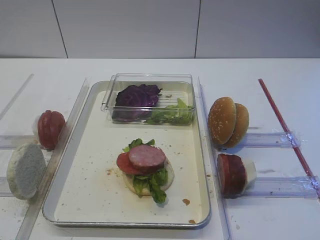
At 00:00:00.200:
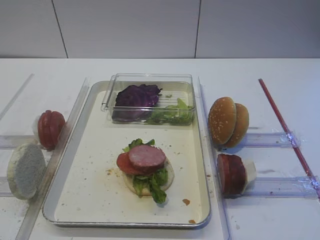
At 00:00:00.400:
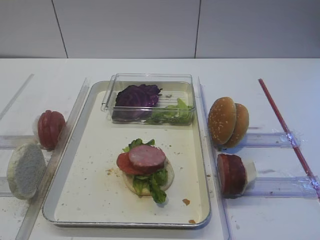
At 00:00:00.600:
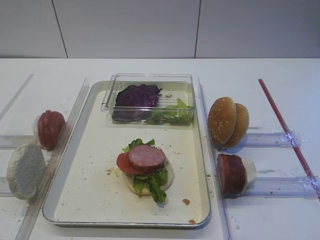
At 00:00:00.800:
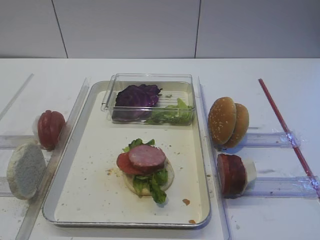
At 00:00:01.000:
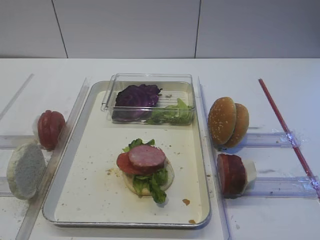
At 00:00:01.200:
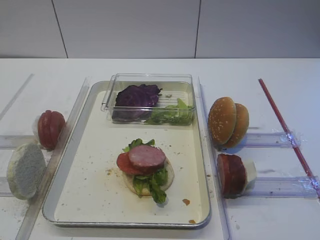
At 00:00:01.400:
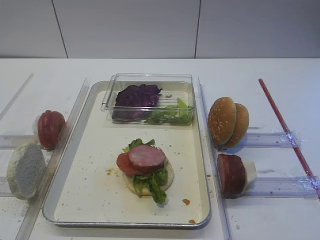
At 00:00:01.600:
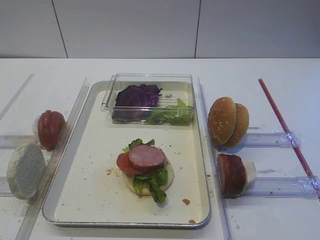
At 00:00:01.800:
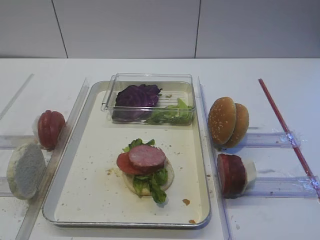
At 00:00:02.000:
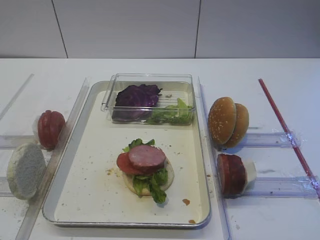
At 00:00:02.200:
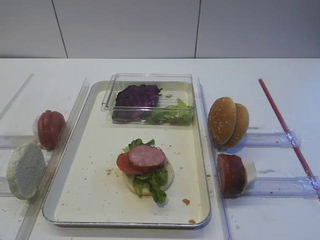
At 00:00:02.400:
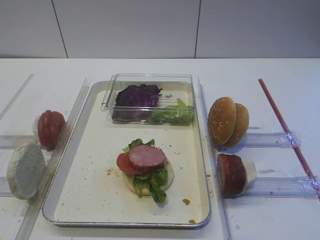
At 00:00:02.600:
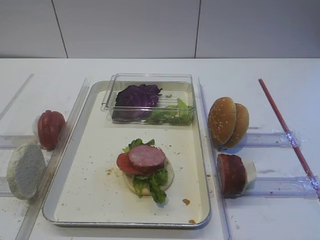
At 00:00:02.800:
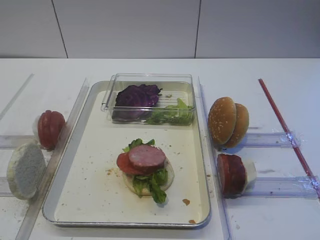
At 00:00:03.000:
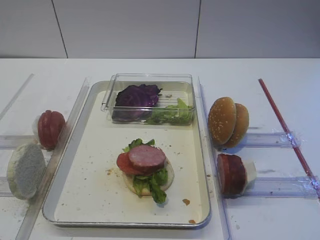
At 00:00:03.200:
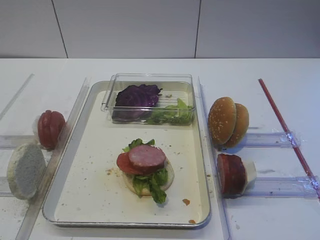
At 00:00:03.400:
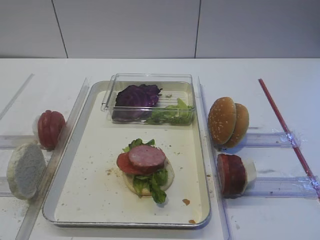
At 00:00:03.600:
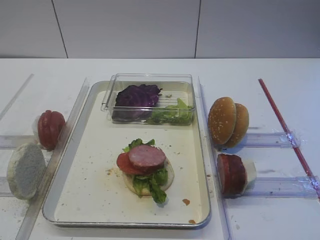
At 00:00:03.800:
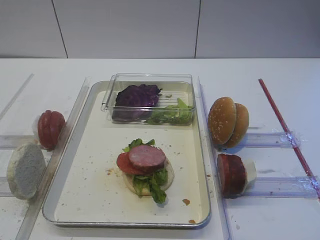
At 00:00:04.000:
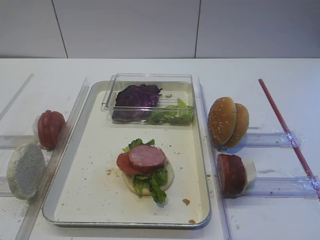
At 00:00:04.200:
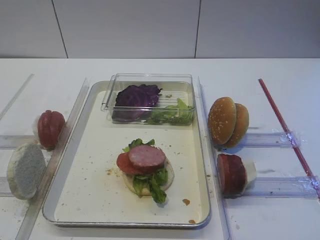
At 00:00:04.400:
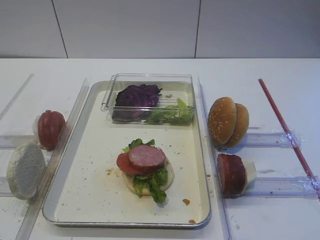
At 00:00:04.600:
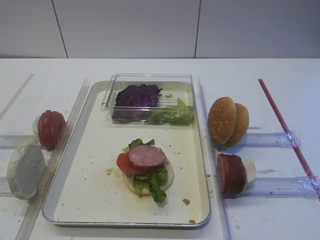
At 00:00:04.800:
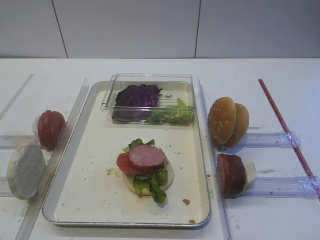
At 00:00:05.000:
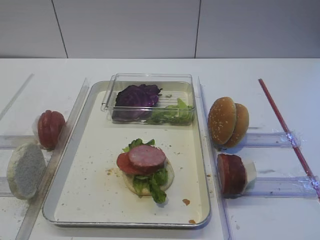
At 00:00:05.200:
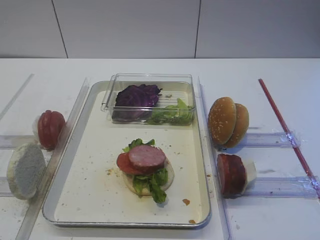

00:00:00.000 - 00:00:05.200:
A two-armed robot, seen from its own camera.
00:00:00.000 - 00:00:05.200: Neither gripper changes place.

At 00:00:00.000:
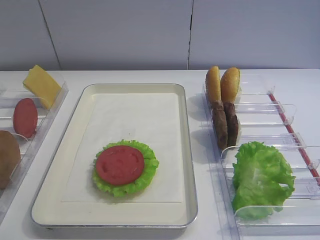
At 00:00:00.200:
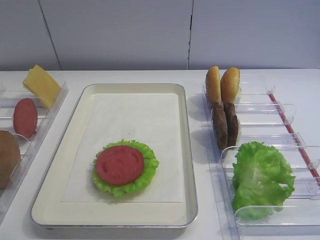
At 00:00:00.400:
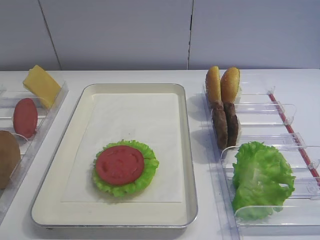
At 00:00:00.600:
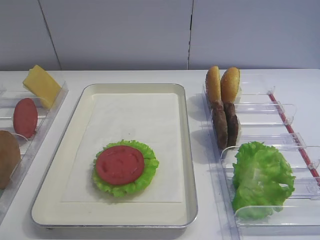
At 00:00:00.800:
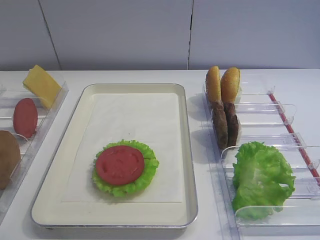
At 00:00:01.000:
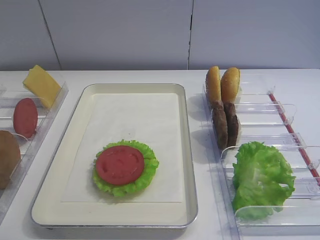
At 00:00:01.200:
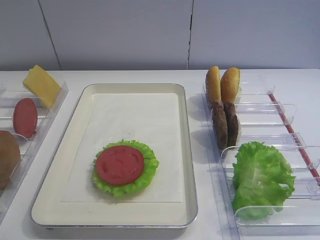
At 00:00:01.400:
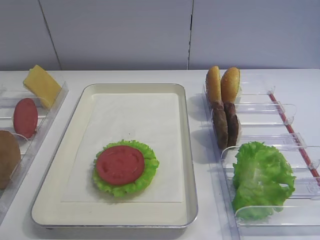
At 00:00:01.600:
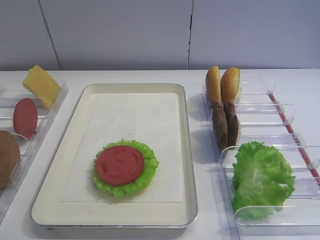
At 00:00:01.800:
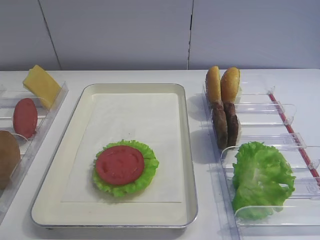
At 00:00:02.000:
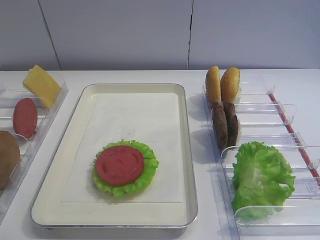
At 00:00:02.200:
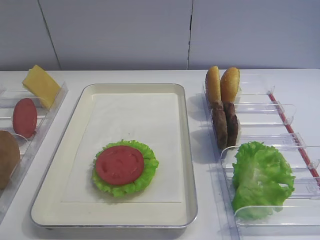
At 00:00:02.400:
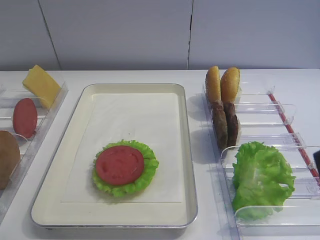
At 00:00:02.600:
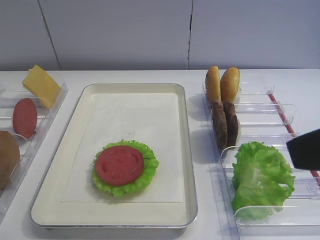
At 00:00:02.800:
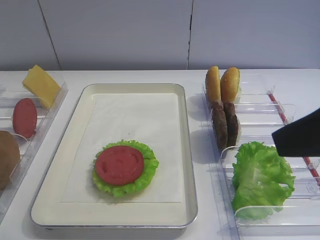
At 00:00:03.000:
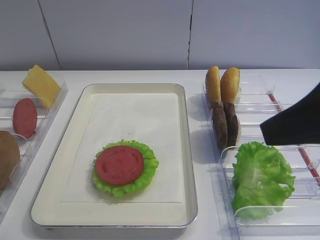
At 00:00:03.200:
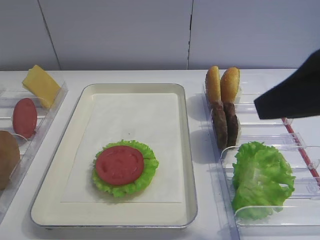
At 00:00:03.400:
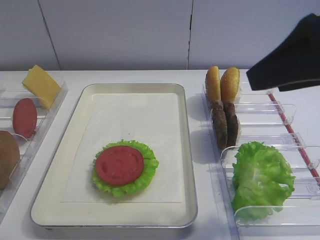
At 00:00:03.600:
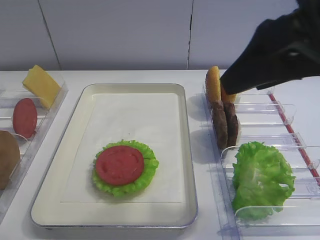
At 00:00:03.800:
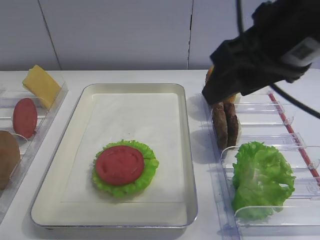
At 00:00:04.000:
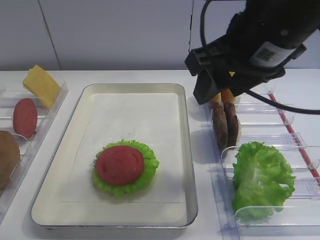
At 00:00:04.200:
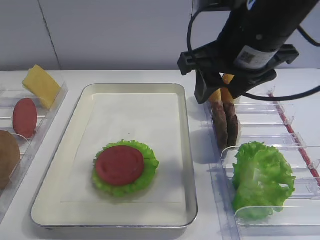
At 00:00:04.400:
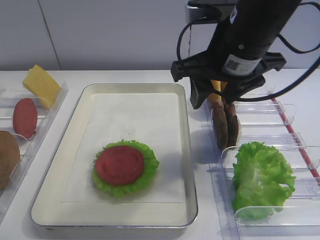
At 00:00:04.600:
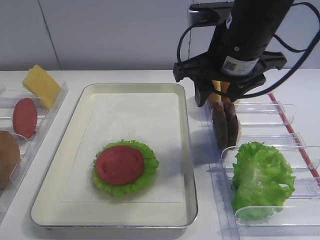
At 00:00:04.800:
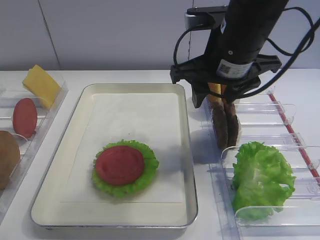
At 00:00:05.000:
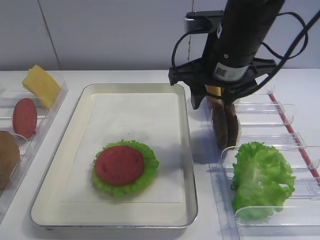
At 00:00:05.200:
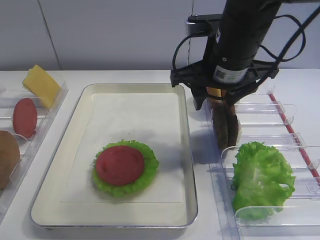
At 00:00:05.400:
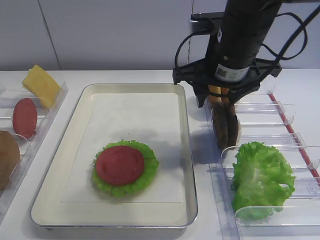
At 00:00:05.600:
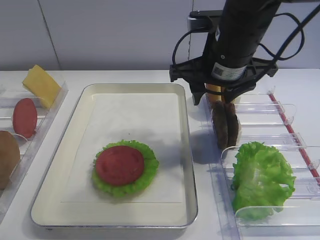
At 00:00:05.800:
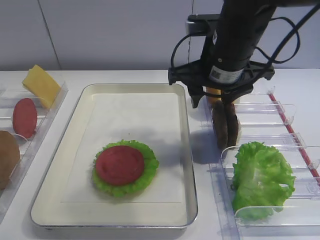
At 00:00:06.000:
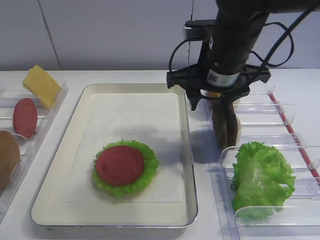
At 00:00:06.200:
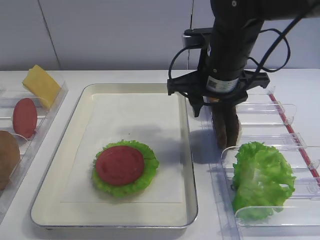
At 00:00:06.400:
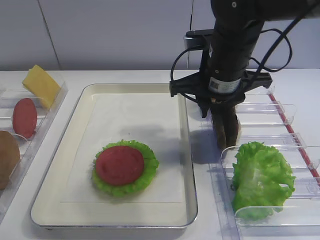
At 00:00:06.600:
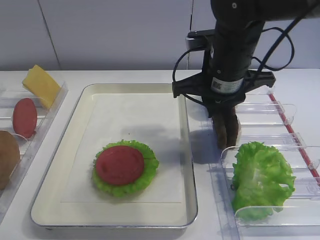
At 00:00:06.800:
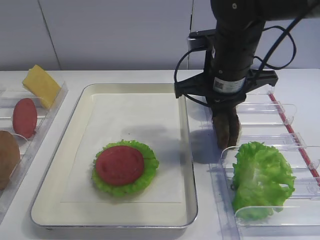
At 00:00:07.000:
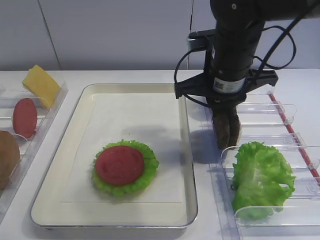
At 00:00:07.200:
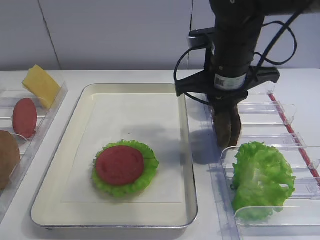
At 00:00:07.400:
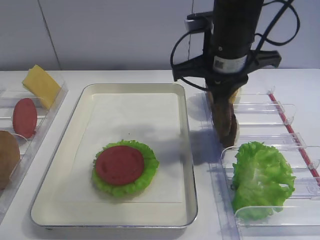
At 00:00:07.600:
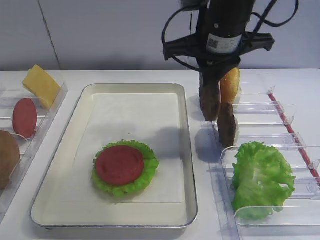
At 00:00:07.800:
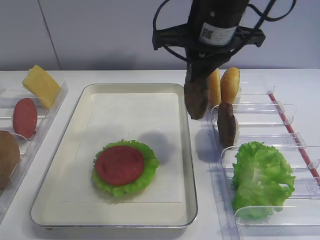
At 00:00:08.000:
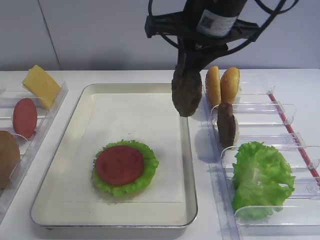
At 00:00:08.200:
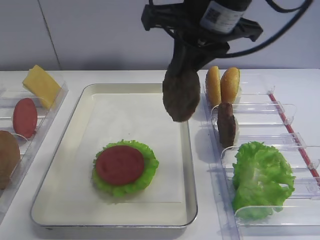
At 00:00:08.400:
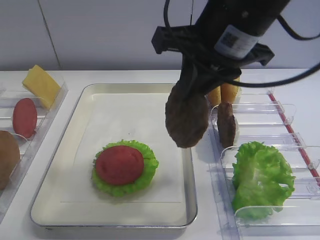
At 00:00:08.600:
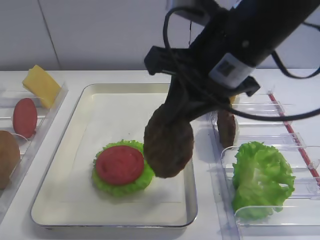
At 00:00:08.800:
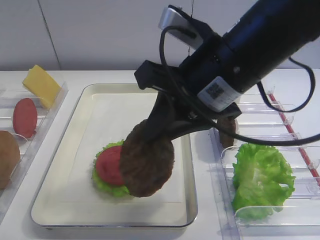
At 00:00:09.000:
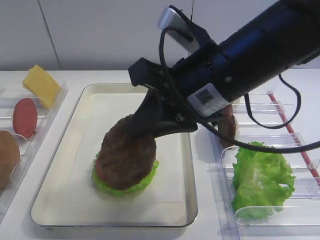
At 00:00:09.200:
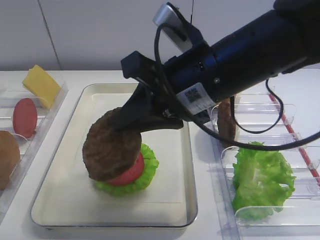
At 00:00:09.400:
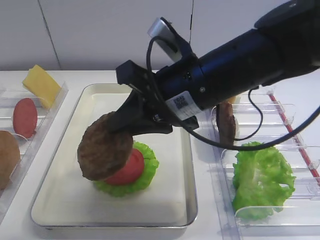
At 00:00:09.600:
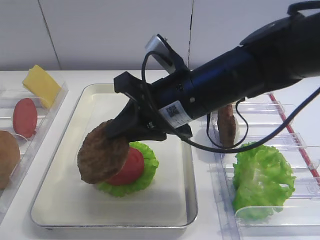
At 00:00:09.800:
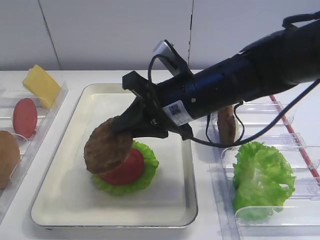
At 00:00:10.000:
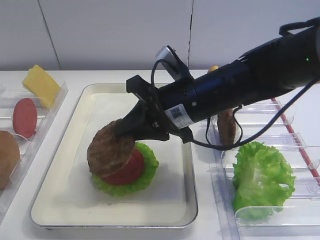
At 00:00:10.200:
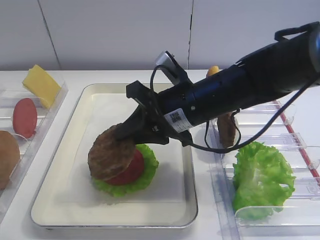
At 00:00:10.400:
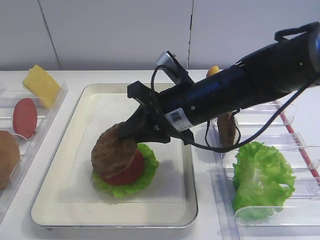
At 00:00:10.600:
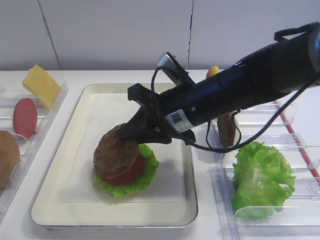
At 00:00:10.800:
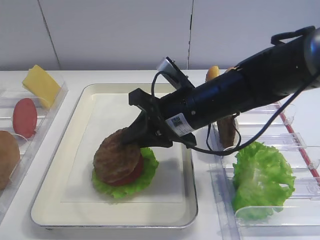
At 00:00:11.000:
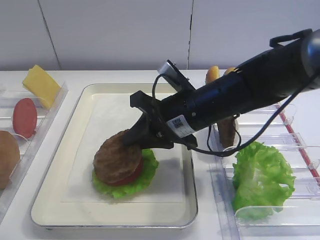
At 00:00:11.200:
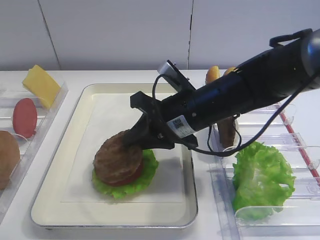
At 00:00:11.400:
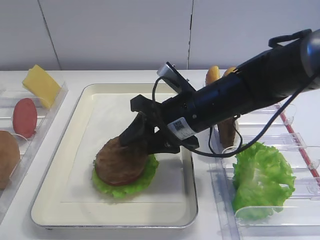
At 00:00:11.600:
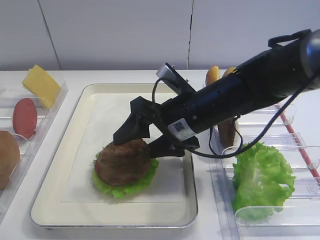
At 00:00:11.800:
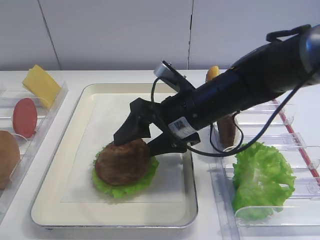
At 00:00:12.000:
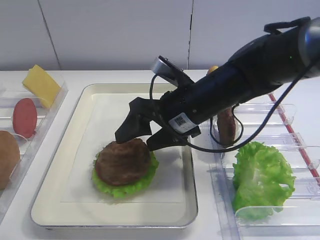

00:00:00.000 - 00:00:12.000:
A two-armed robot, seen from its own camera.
Step, 00:00:00.000 - 00:00:07.600: Pick up the cutlet with the right gripper.
00:00:01.600 - 00:00:03.000: The right gripper heads forward and to the left, covering some 15 cm.
00:00:03.000 - 00:00:04.400: The right gripper goes some 20 cm forward and to the left.
00:00:04.400 - 00:00:06.000: The right gripper shifts by about 5 cm.
00:00:06.000 - 00:00:07.600: The right gripper ends up some 5 cm from where it was, and closes up.
00:00:07.600 - 00:00:09.000: The right gripper travels backward by some 10 cm.
00:00:09.000 - 00:00:10.400: The right gripper is displaced downward and forward by approximately 10 cm.
00:00:10.400 - 00:00:12.000: The right gripper opens up.

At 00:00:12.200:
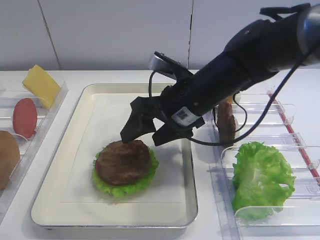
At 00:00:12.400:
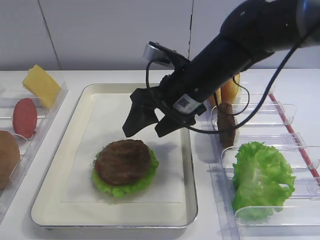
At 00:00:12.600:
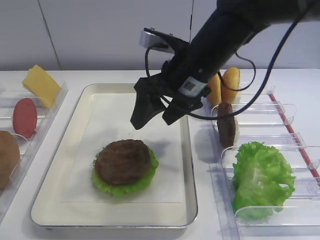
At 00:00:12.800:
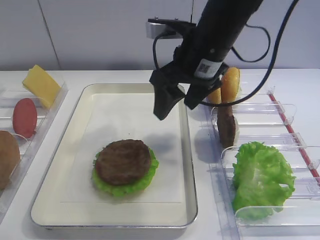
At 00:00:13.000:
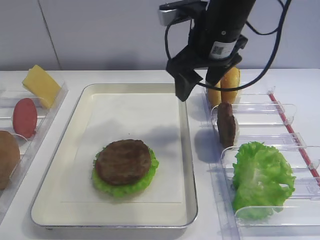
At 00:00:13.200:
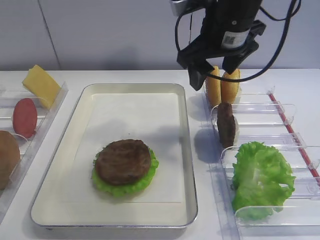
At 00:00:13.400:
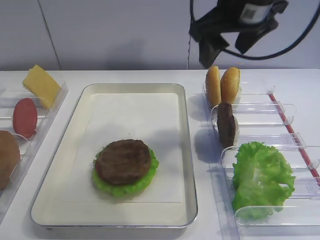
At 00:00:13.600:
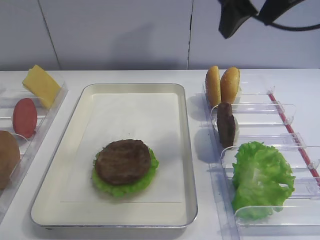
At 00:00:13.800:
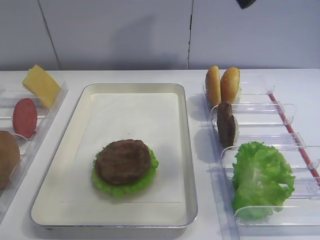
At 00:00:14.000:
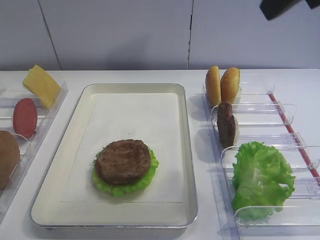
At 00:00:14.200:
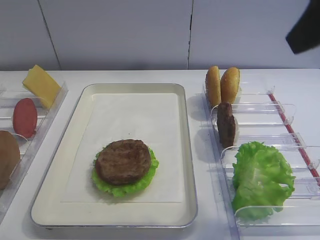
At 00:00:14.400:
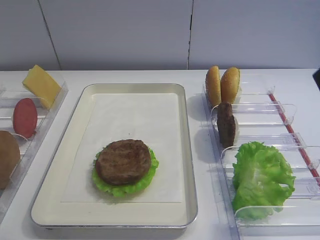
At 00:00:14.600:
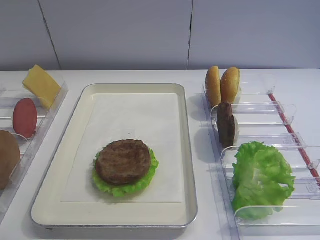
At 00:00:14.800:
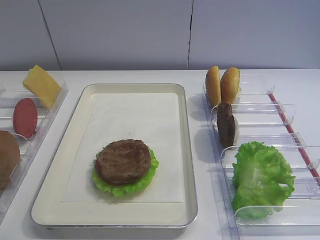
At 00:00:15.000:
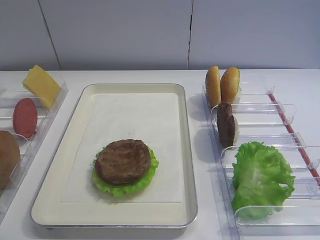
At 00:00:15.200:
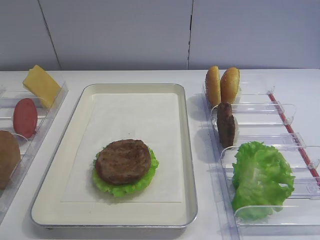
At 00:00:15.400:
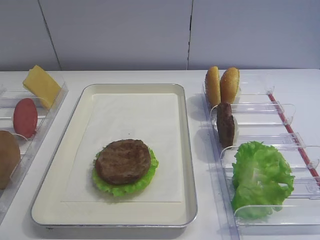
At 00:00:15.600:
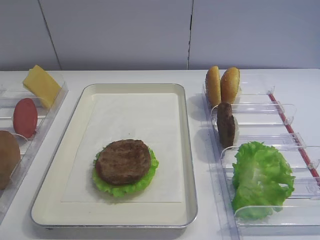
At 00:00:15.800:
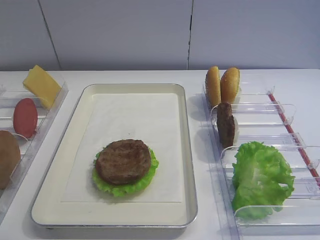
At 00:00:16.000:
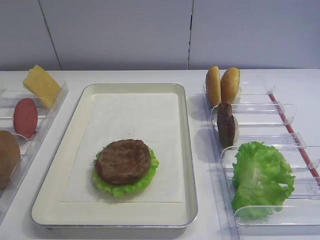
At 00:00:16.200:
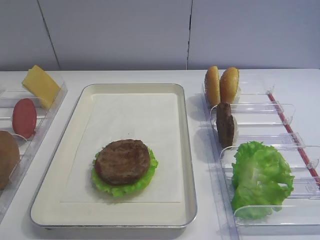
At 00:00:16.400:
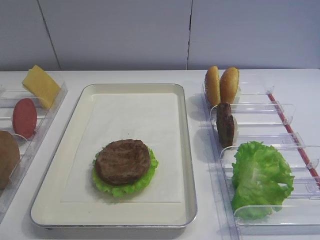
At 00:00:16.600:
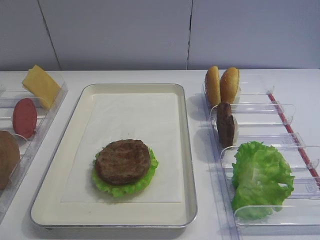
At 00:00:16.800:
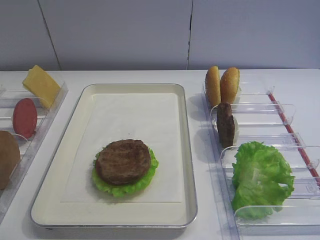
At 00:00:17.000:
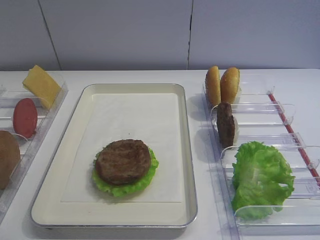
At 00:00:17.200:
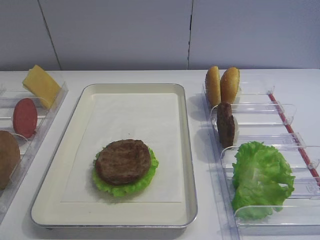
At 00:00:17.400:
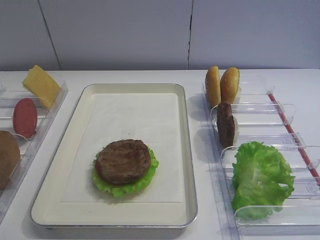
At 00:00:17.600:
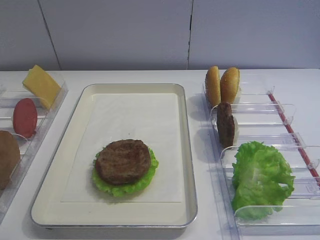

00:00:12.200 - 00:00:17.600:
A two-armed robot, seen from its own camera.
00:00:12.200 - 00:00:13.600: The right gripper travels upward and to the right by approximately 20 cm.
00:00:13.600 - 00:00:15.000: The right gripper heads backward, covering roughly 30 cm.
00:00:15.000 - 00:00:16.200: The right gripper moves roughly 5 cm.
